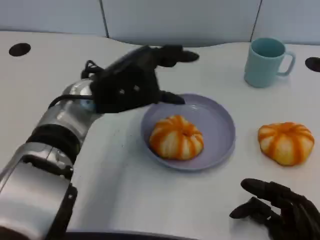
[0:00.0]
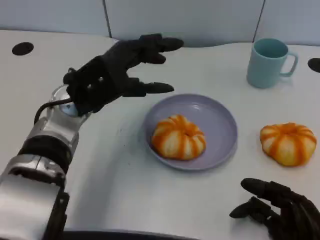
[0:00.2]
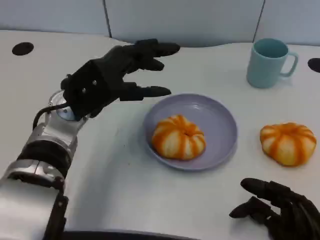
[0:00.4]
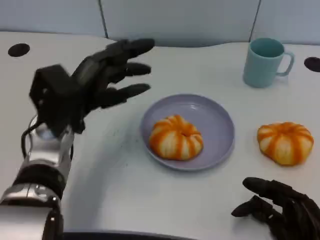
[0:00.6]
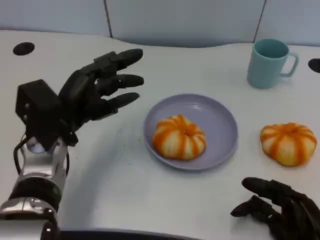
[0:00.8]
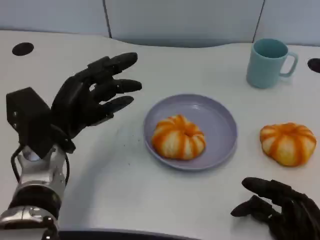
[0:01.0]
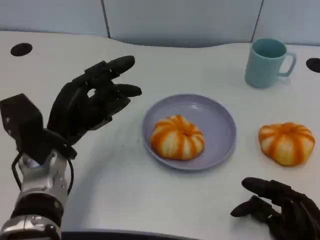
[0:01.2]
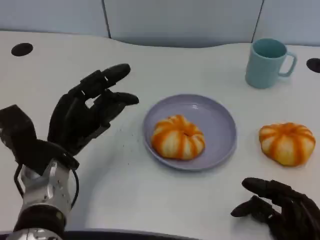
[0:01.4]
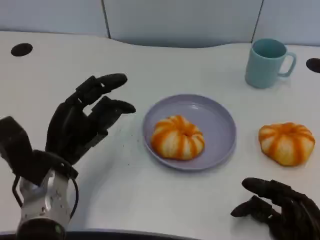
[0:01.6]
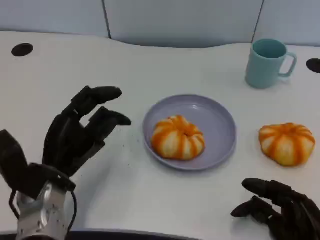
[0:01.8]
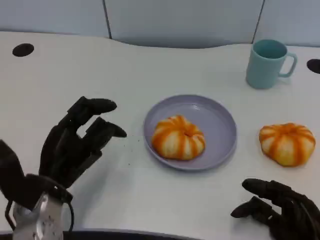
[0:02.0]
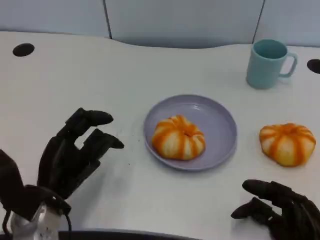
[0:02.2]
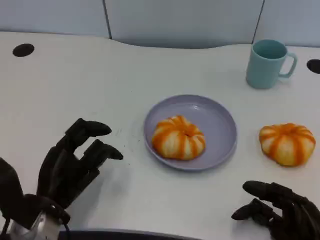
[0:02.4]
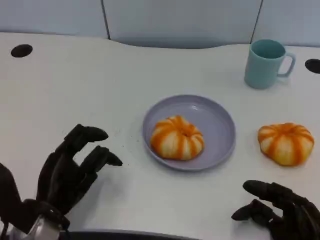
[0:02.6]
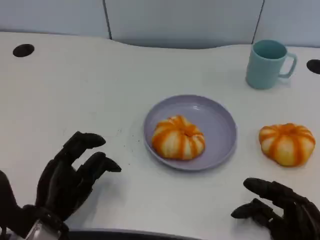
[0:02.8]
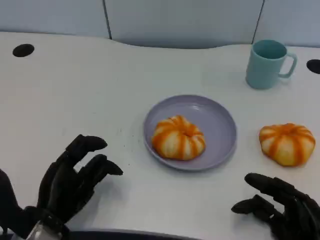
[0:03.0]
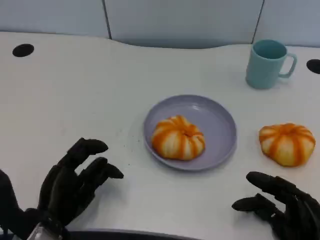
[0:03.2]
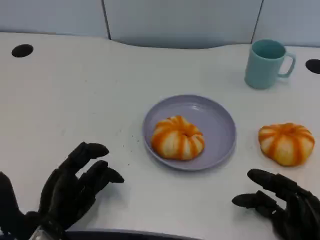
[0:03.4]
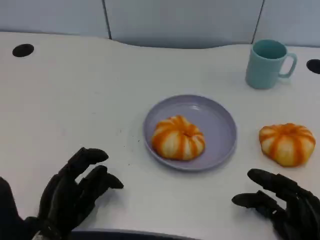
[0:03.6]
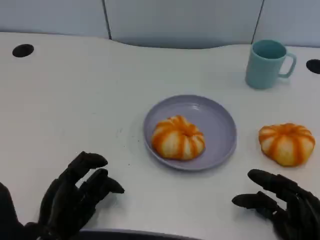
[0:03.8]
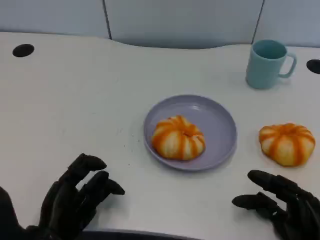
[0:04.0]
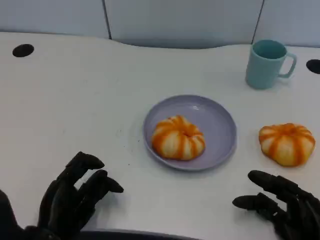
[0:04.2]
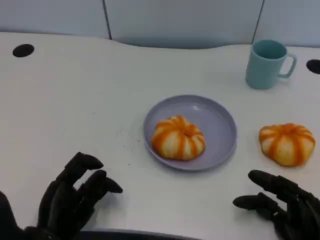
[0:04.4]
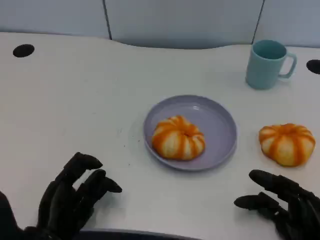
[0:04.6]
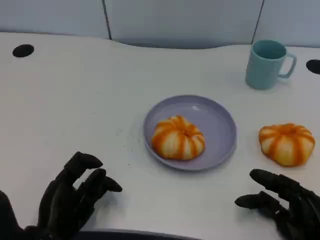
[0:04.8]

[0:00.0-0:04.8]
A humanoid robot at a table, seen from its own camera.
Task of the whole recording: Grasp the bread from the table and place it into the plate.
0:00.0 to 0:01.6: The left hand shifts approximately 15 cm downward, to the left and backward.
0:01.6 to 0:03.2: The left hand shifts some 5 cm backward.
0:03.2 to 0:04.8: There are only small adjustments of the hands.

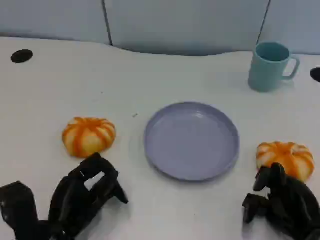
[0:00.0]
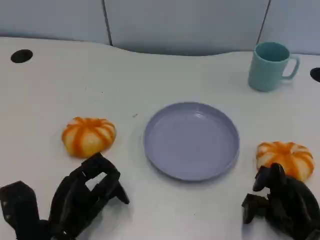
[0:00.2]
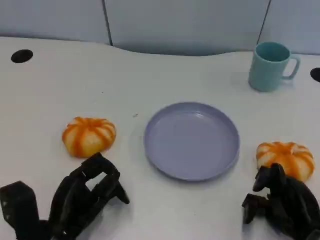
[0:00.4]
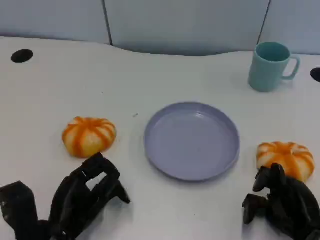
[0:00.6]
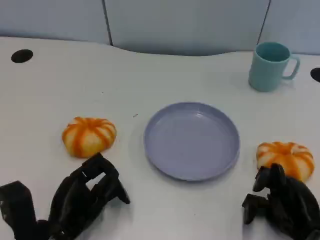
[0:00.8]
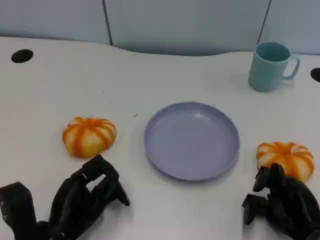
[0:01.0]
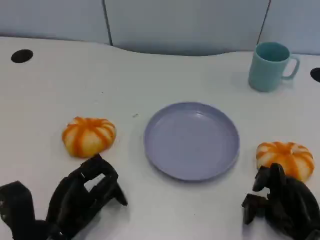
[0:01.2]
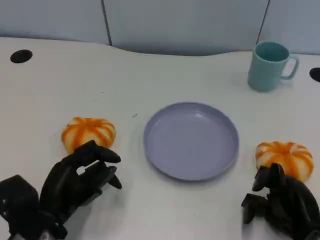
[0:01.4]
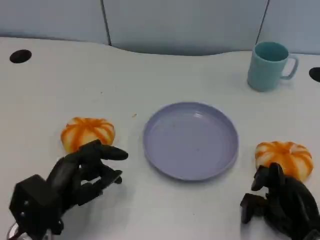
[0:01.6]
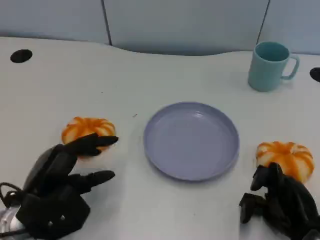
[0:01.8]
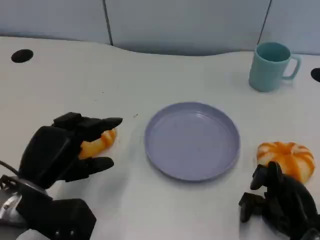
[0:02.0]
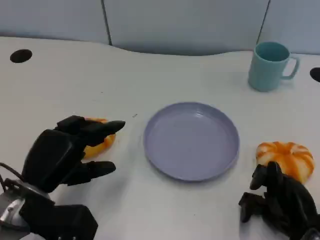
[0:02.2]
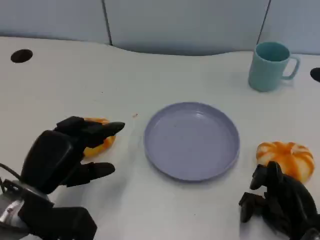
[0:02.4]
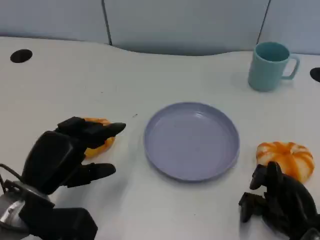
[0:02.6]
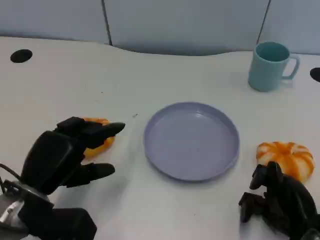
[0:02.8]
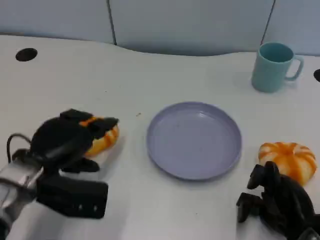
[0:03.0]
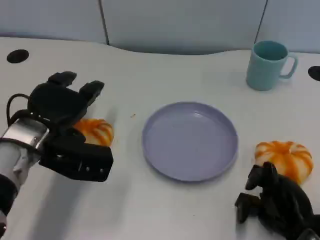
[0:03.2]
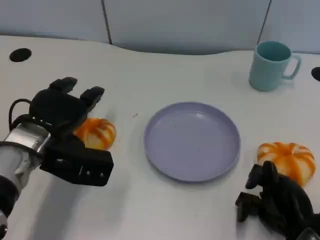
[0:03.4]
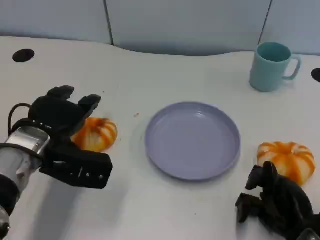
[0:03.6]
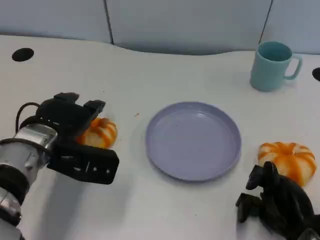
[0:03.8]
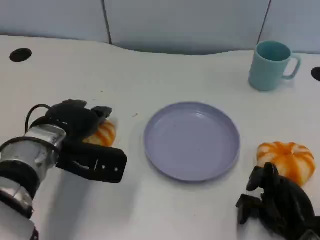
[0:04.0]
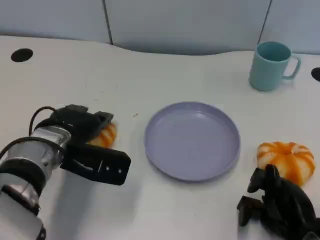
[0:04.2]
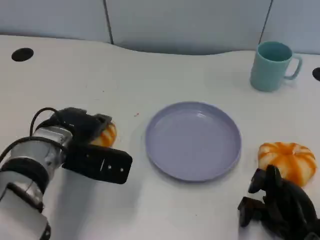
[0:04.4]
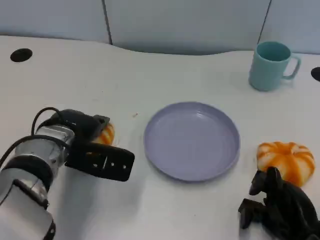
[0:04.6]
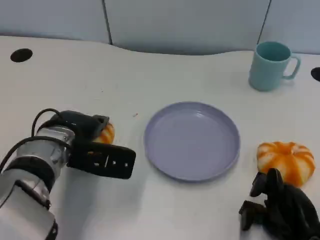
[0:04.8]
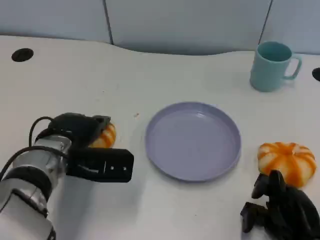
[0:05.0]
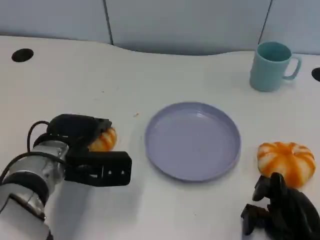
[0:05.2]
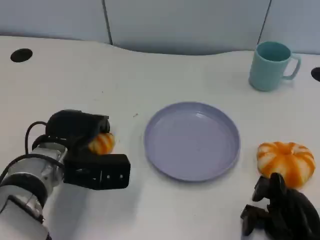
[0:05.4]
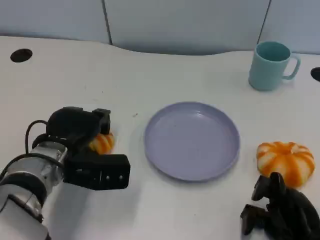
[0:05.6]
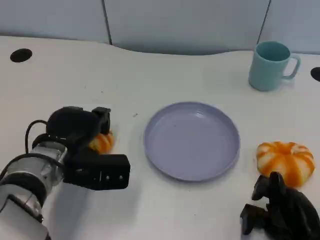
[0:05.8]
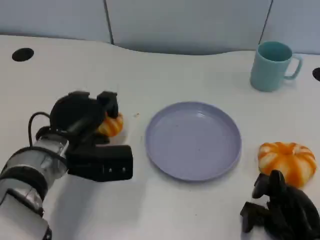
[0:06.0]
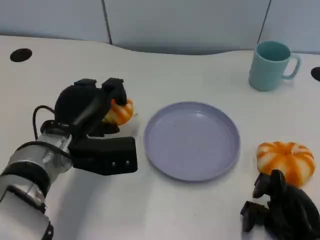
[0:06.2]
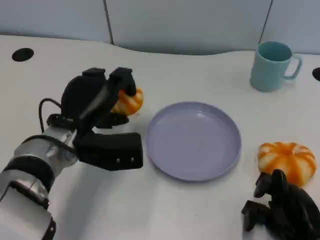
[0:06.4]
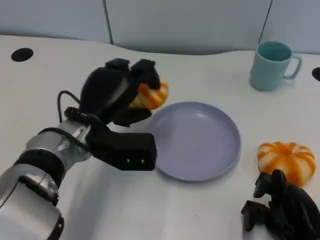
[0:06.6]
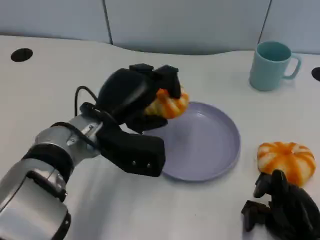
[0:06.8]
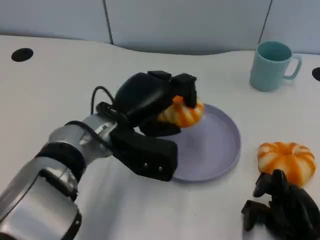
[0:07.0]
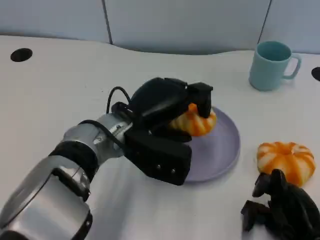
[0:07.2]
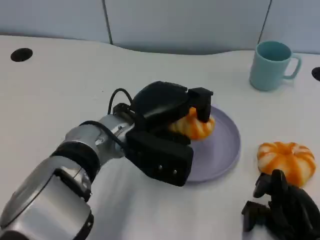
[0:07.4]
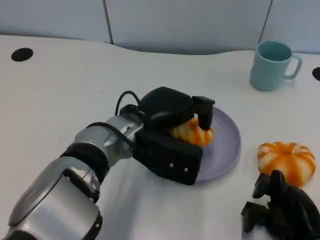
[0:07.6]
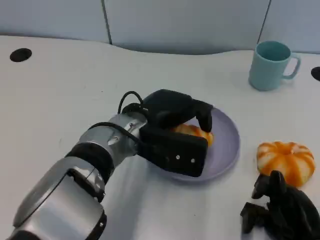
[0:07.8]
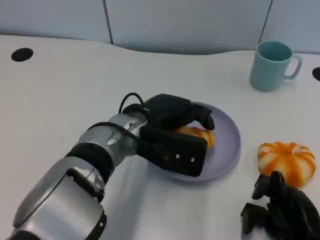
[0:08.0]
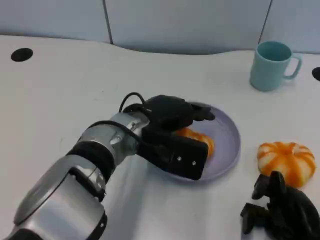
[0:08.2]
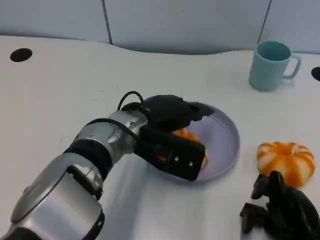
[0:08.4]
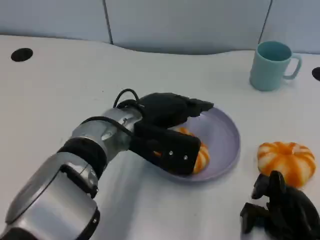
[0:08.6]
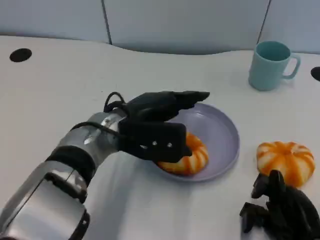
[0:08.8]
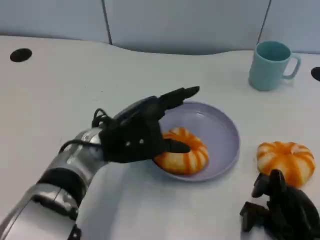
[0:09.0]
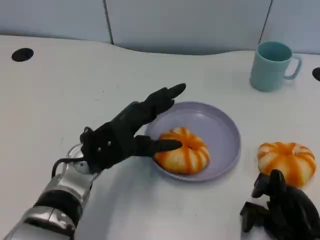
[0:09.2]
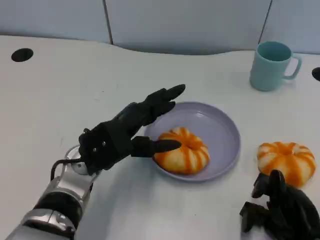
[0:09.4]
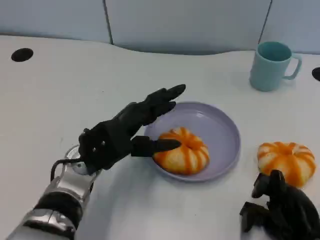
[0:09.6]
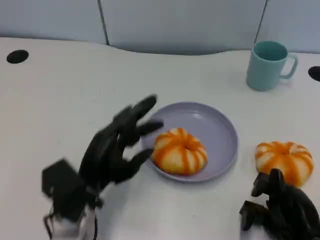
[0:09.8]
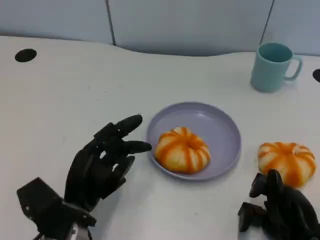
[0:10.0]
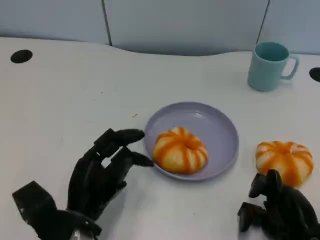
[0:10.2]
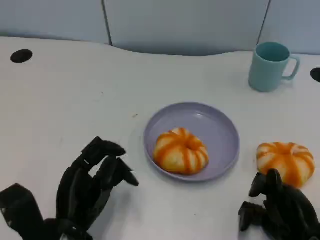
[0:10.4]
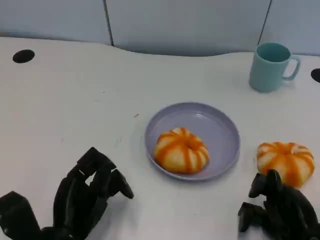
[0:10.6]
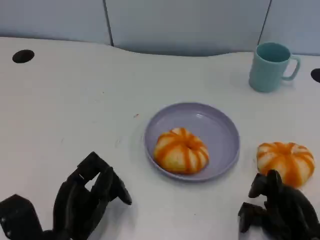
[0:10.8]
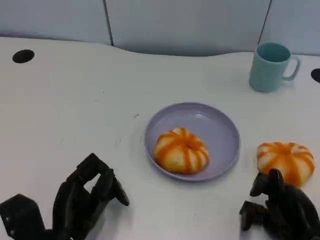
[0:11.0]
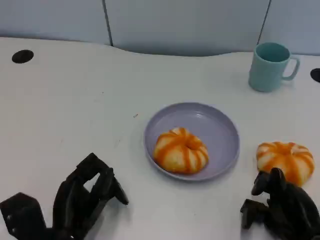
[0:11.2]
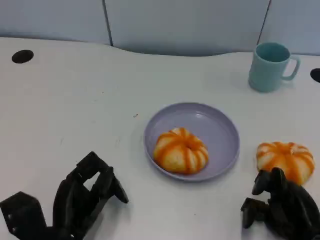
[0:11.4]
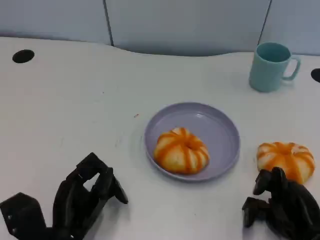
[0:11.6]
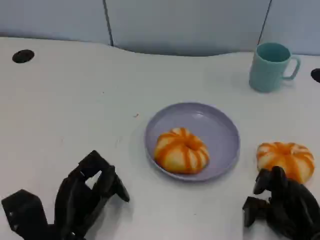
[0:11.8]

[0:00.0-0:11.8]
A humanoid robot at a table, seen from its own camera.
Task of the whole recording: Grasp the bread from the table and place it into the plate.
0:00.0 to 0:01.4: The hands make only small movements.
0:01.4 to 0:03.0: The left hand heads forward and upward, covering some 10 cm.
0:03.0 to 0:04.4: The left hand changes place by approximately 5 cm.
0:06.0 to 0:07.4: The left hand heads to the right, covering roughly 10 cm.
0:08.8 to 0:10.4: The left hand moves backward, downward and to the left, approximately 15 cm.
0:10.4 to 0:11.8: The hands make only small movements.

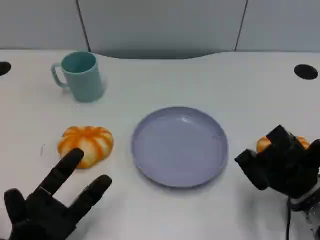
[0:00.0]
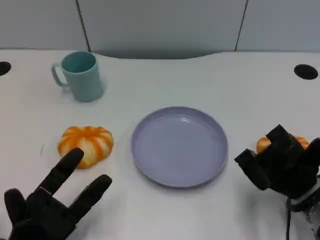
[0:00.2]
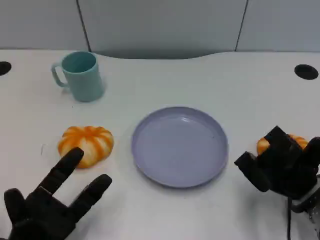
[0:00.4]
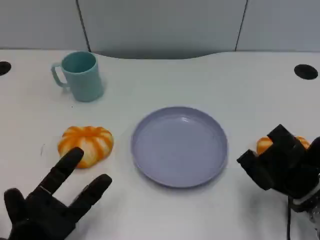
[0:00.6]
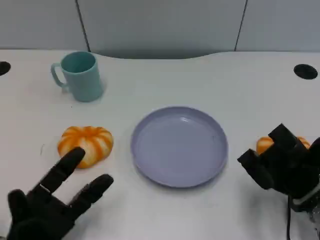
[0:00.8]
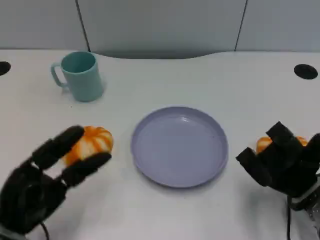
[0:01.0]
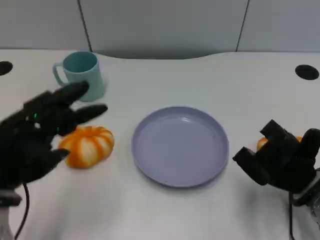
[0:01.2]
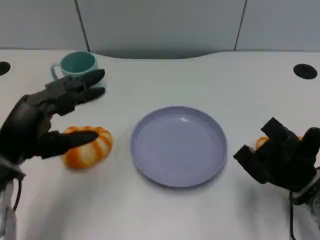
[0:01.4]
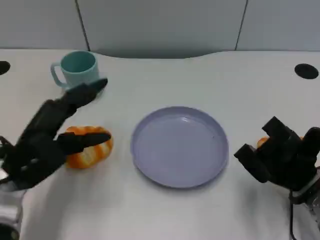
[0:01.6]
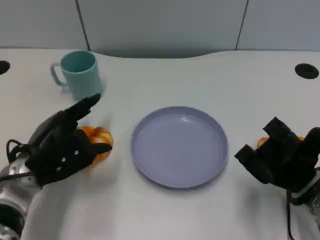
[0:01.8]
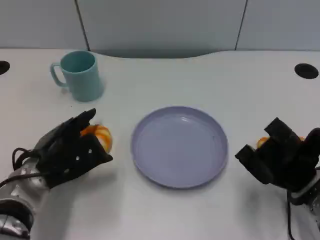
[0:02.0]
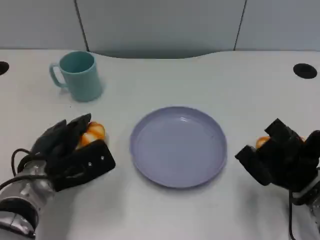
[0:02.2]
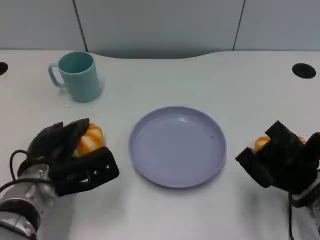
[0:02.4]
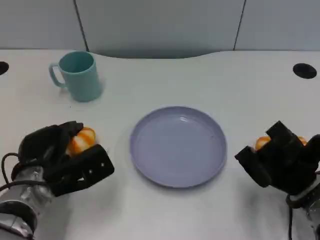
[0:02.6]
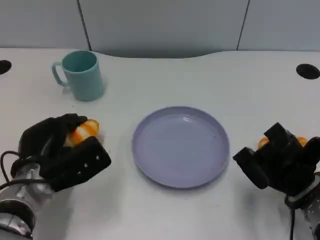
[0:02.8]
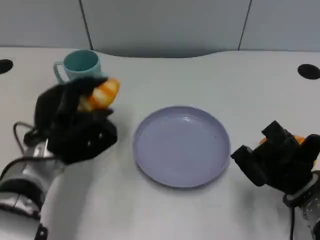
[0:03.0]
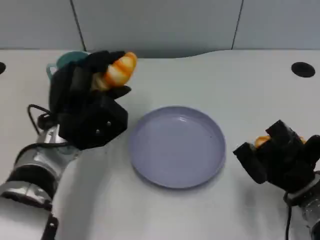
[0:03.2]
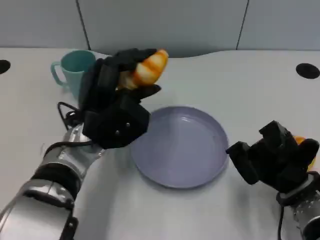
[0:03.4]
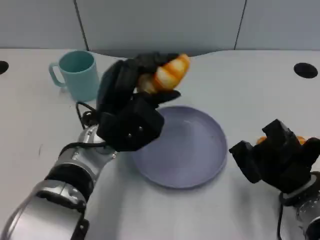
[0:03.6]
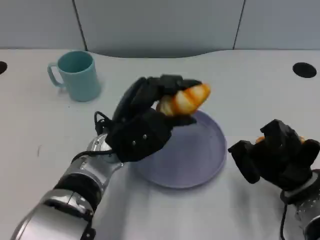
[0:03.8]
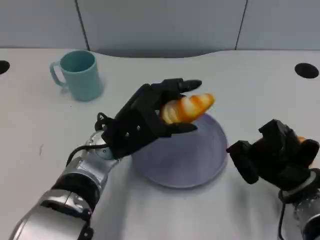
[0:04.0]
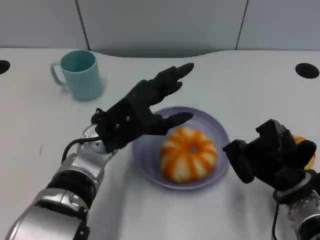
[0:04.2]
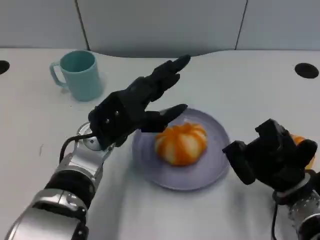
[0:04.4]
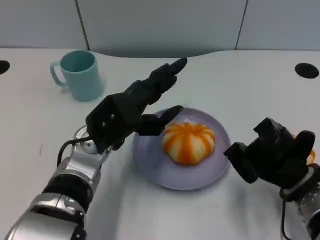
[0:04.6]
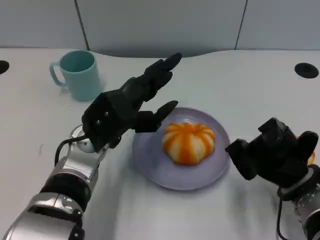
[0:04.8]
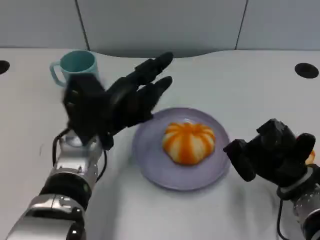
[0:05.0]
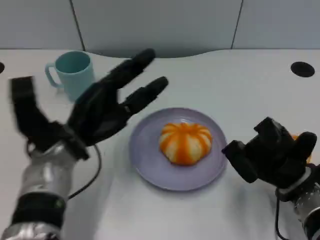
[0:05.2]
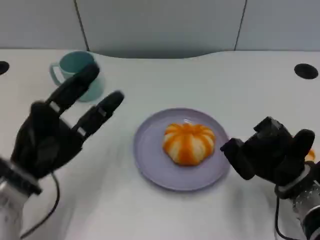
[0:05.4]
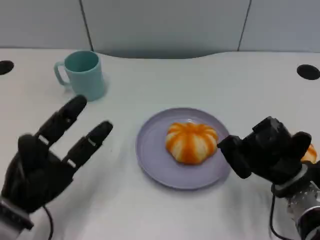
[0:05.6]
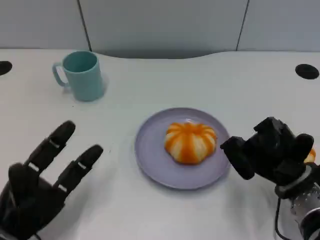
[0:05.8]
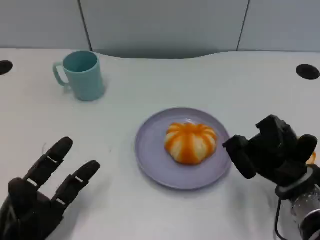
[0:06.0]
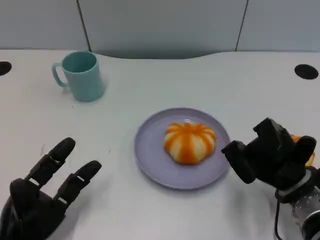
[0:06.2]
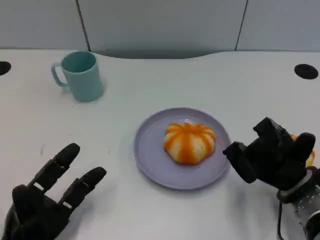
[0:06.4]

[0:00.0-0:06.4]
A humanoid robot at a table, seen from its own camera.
Task of the whole recording: Grasp the bread from the table and place it into the plate.
0:00.0 to 0:01.6: The left hand moves upward and forward, some 15 cm.
0:01.6 to 0:03.2: The left hand goes approximately 10 cm to the right.
0:04.8 to 0:06.4: The left hand travels backward, to the left and downward by about 20 cm.
